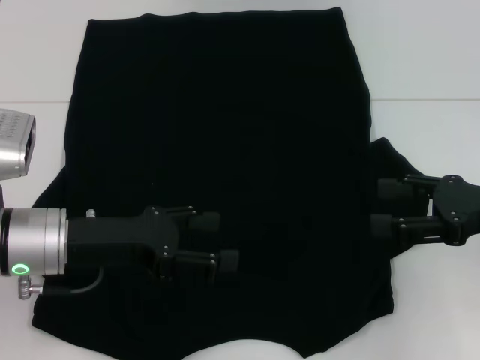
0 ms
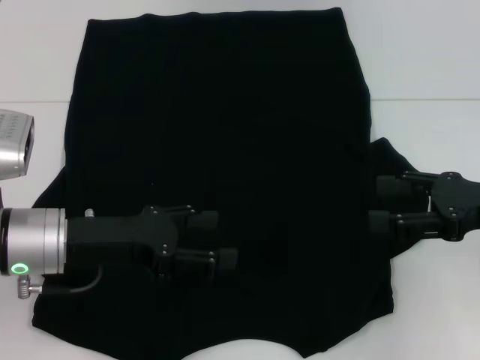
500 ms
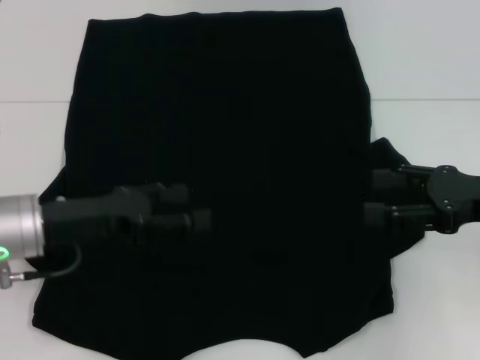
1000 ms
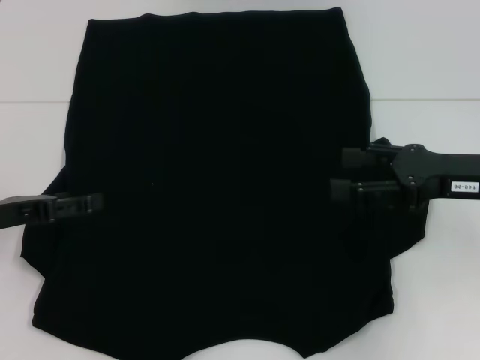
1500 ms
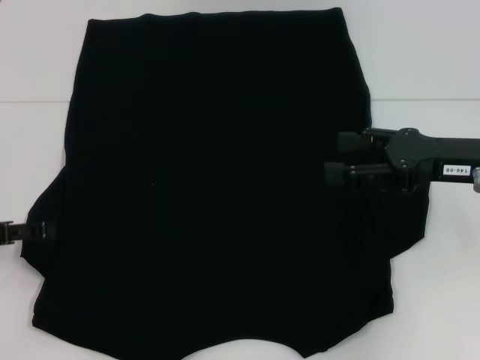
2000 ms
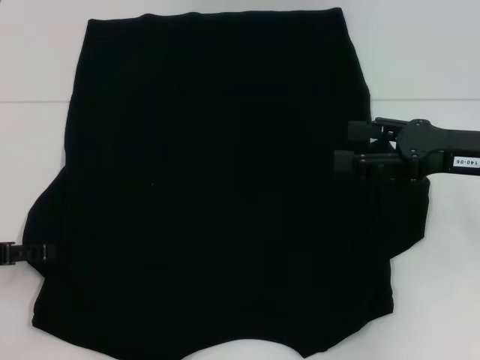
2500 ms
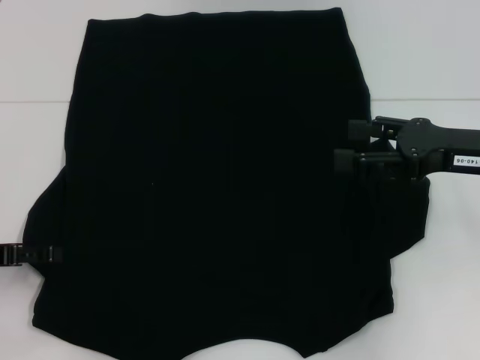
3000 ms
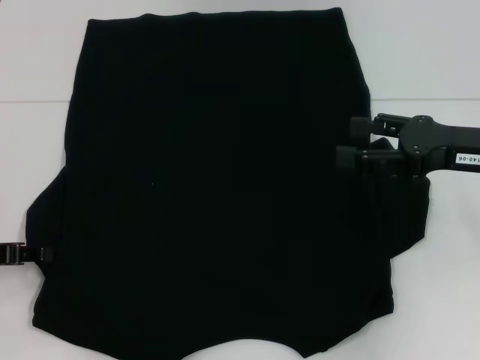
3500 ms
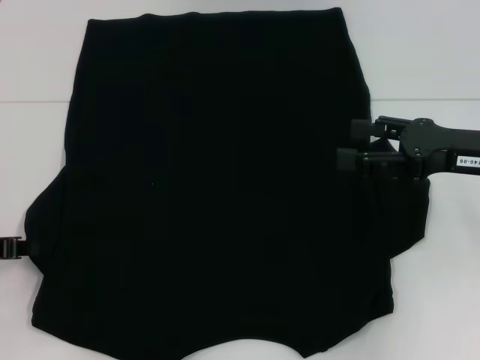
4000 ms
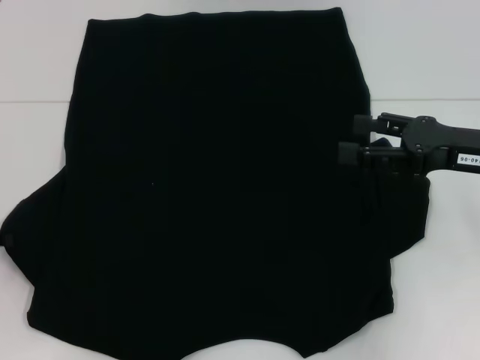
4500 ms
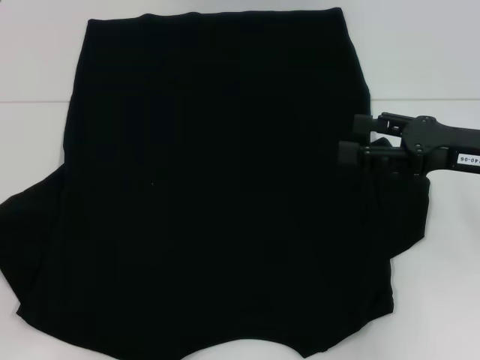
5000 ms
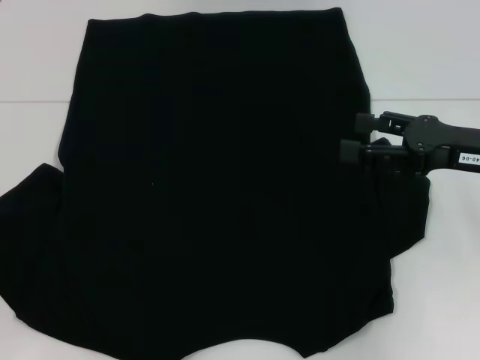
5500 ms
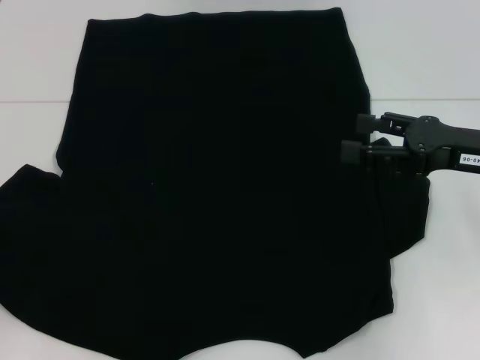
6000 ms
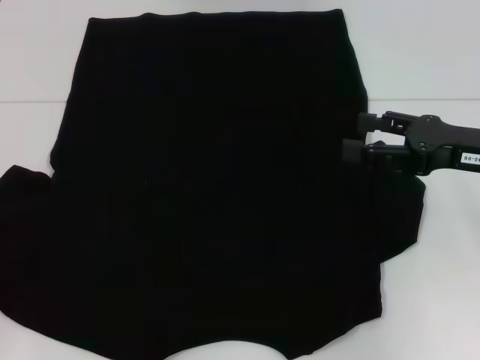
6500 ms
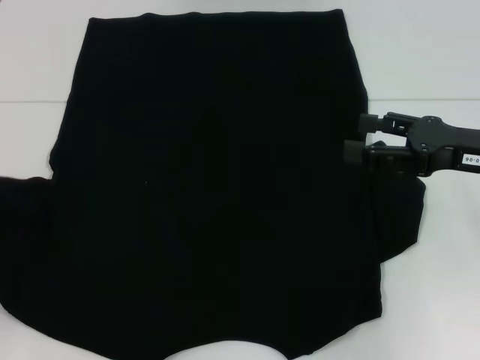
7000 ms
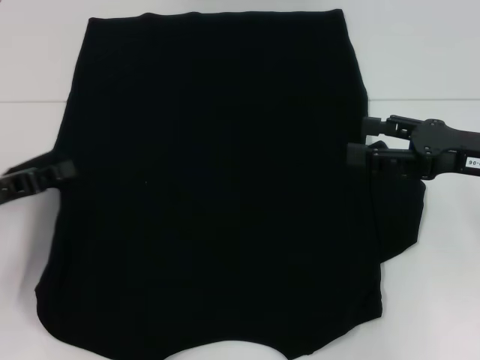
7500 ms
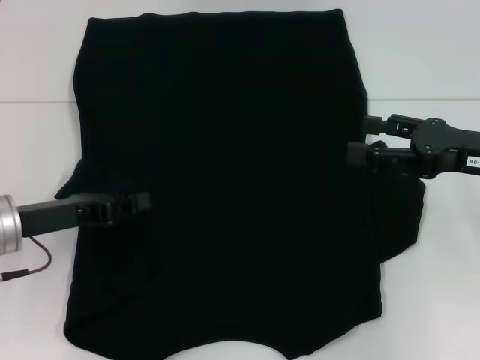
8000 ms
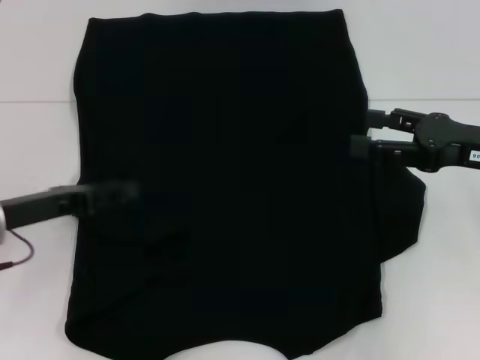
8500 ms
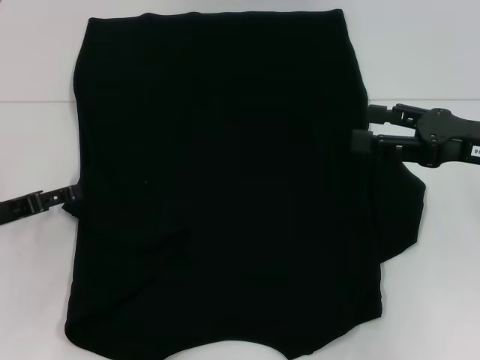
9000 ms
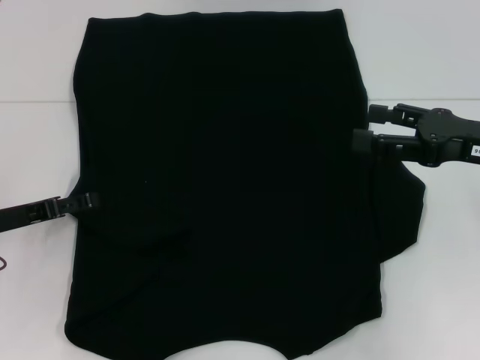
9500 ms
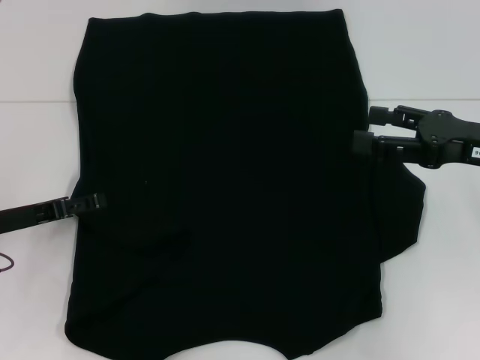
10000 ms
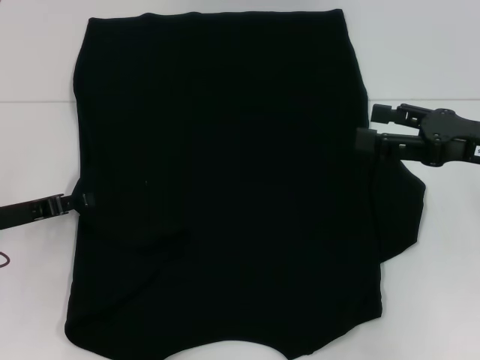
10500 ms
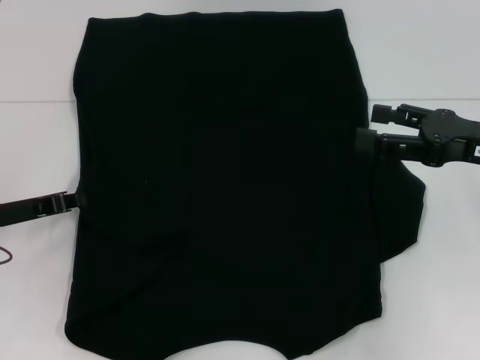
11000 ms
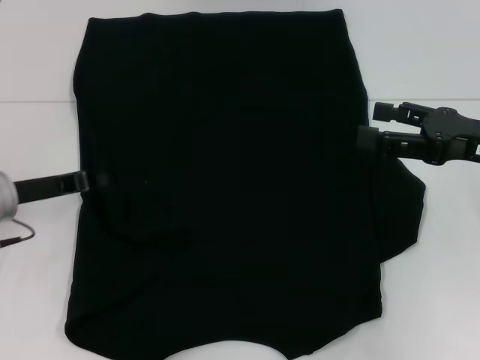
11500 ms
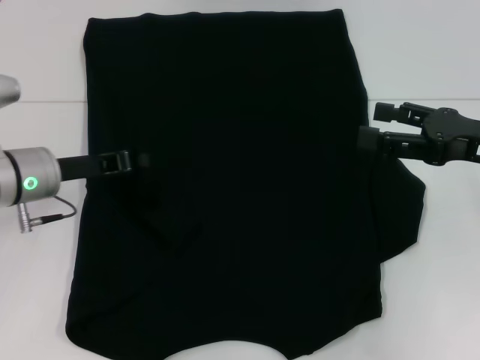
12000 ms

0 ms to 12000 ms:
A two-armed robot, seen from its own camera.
Step, 0 ms to 8500 ms: Fold the bottom left sleeve with your left hand.
0 ms to 2000 ms: The right gripper changes place by about 5 cm, while the left gripper shifts about 15 cm to the left.
2000 ms to 4000 ms: The left gripper closes.
4000 ms to 6000 ms: The left gripper shifts roughly 5 cm to the left.
6000 ms to 8000 ms: The left gripper shifts roughly 15 cm to the right.
8000 ms to 10000 ms: The left gripper opens its fingers.
10000 ms to 12000 ms: The left gripper travels to the right and forward by roughly 10 cm, and closes up.

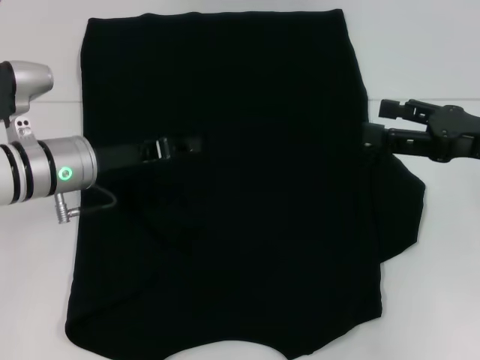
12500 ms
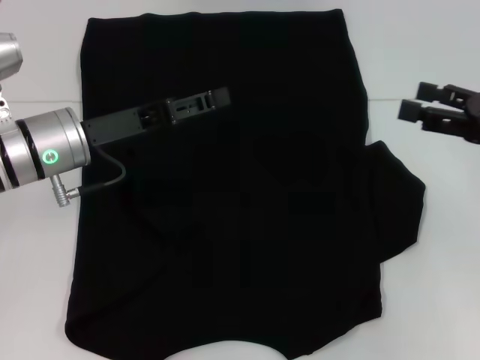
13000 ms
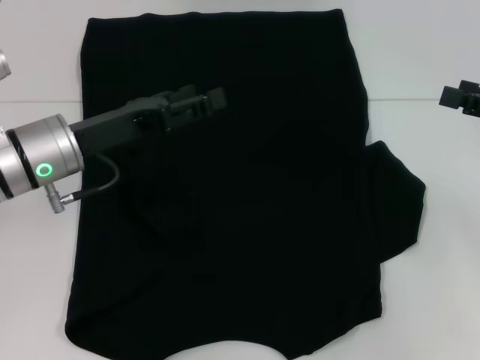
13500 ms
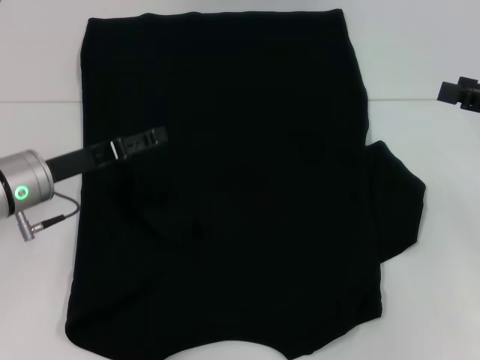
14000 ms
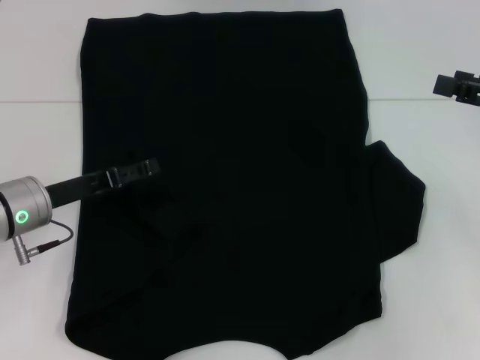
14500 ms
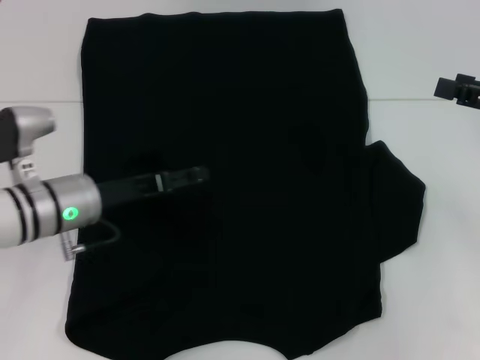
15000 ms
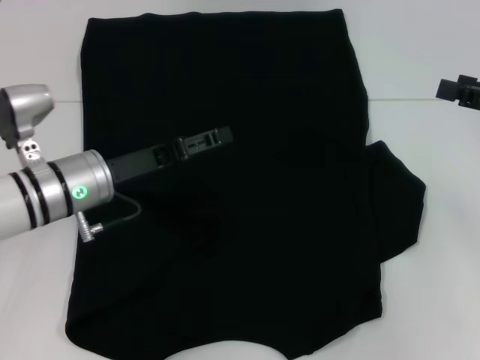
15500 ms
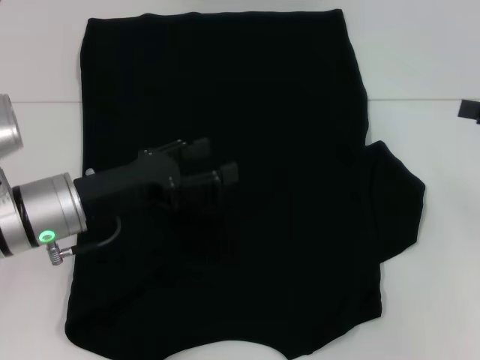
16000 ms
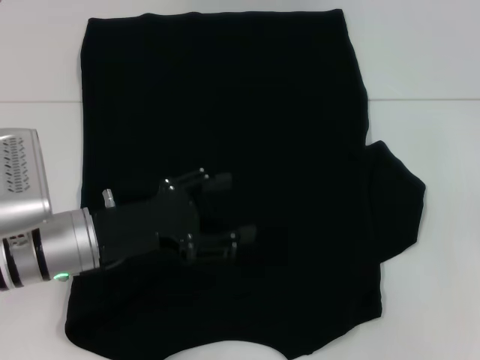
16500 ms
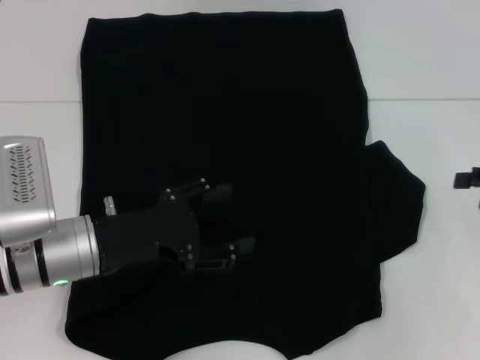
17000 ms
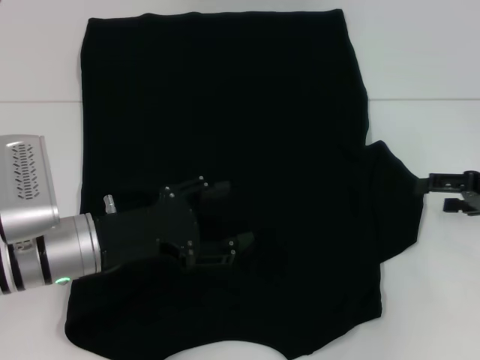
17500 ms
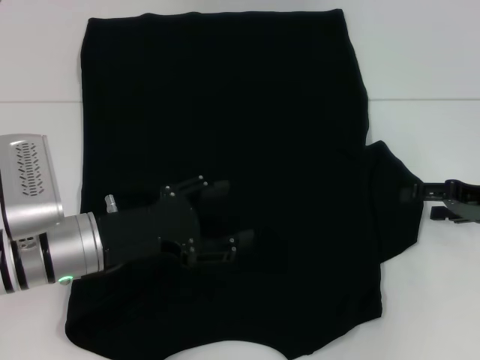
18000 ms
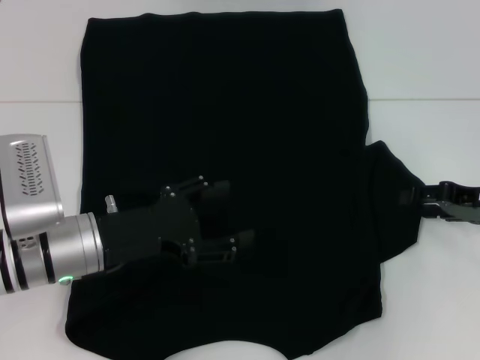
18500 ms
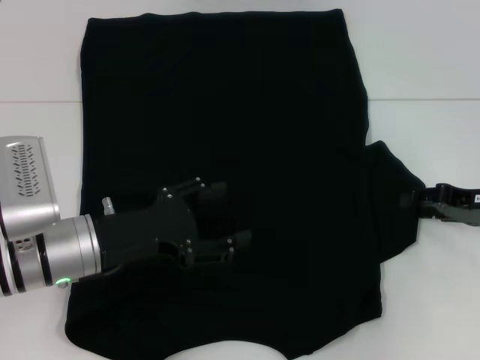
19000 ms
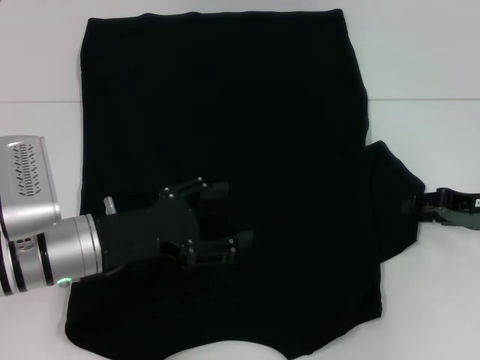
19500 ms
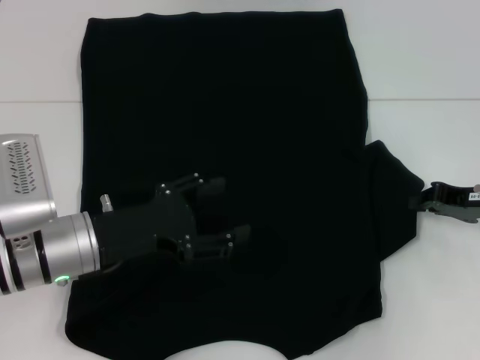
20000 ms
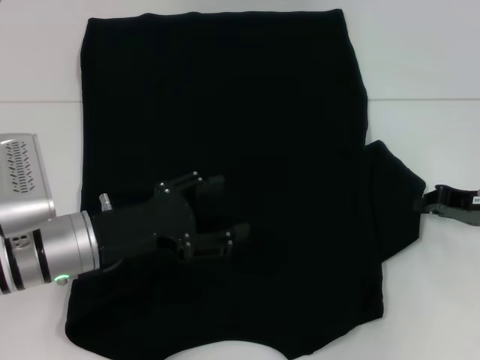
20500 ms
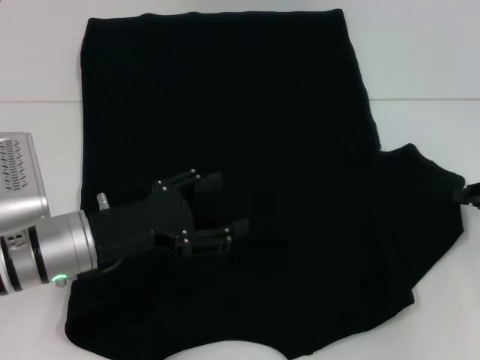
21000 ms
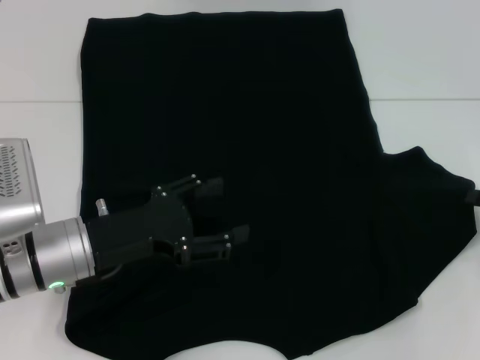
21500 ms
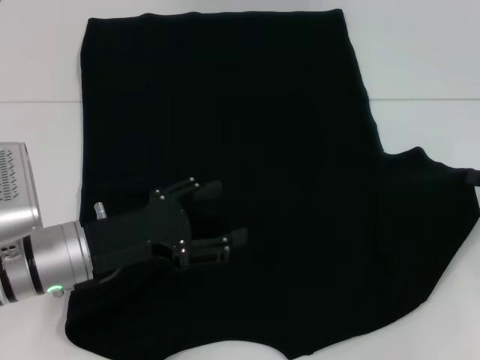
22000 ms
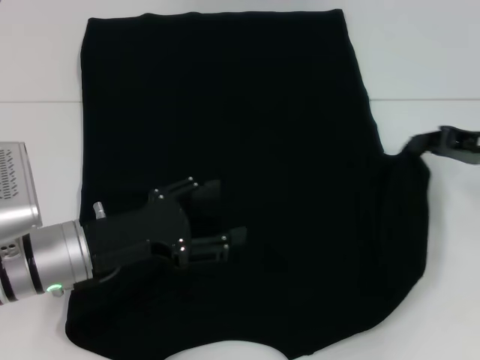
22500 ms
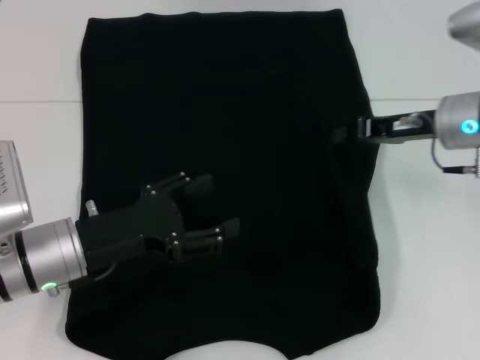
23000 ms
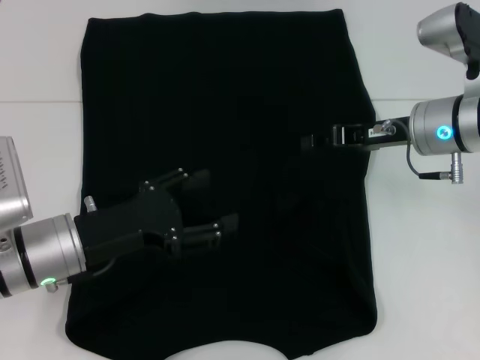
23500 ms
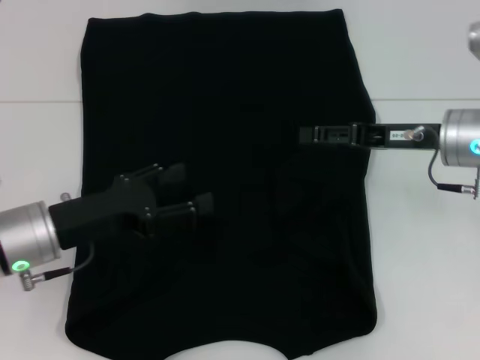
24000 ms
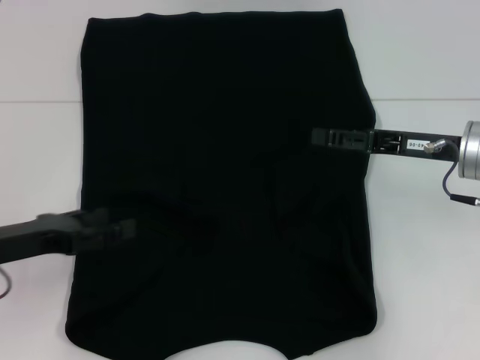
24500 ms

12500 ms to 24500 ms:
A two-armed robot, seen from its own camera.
Step, 12500 ms to 24000 ms: Fold the bottom right sleeve with your right hand.
12500 ms to 14500 ms: The right gripper heads to the right, covering approximately 5 cm. Meanwhile the left gripper changes place by some 5 cm, and opens up.
14500 ms to 16500 ms: The two grippers go approximately 5 cm to the right.
16500 ms to 18500 ms: The right gripper travels to the left and downward by about 10 cm.
18500 ms to 20500 ms: The right gripper closes its fingers.
20500 ms to 22500 ms: The right gripper shifts roughly 5 cm upward.
22500 ms to 24500 ms: Both grippers travel together to the left, roughly 10 cm. The right gripper opens up.

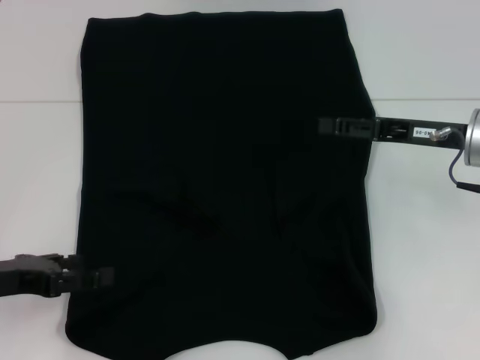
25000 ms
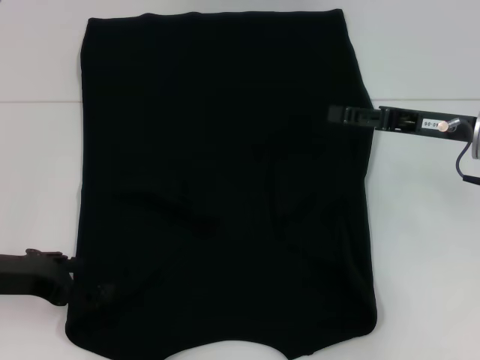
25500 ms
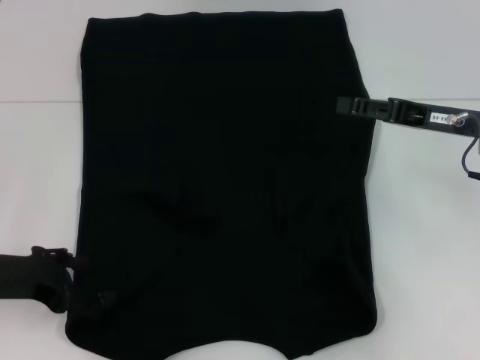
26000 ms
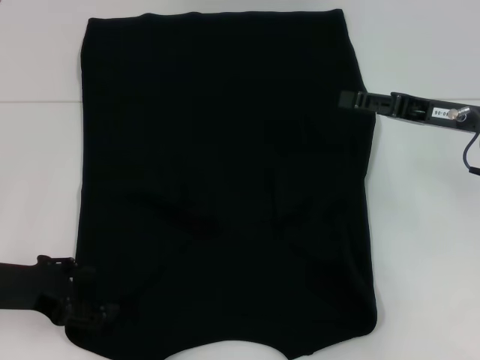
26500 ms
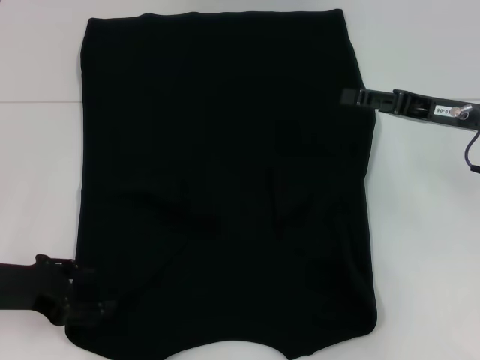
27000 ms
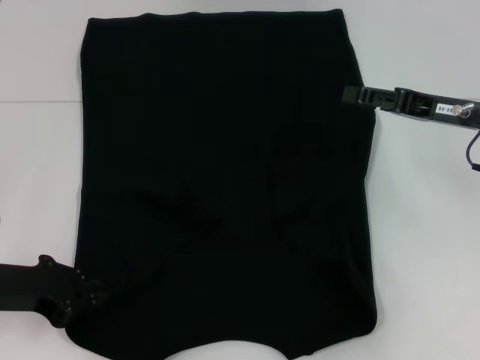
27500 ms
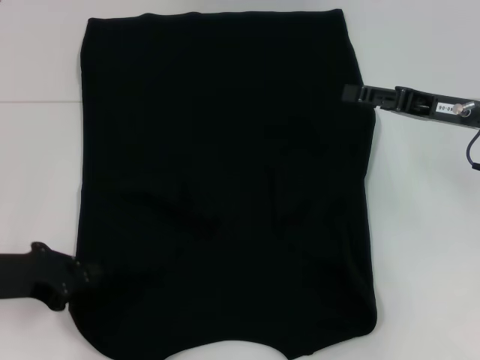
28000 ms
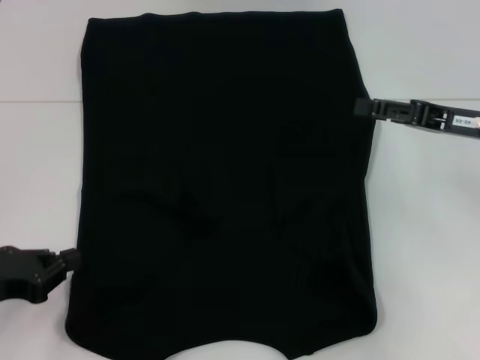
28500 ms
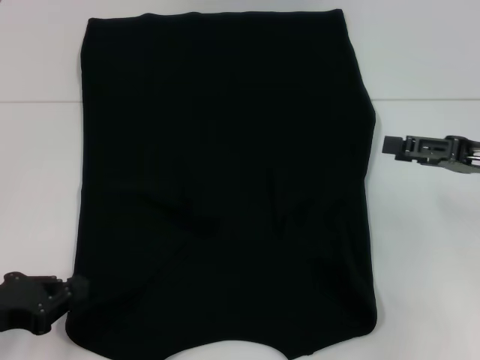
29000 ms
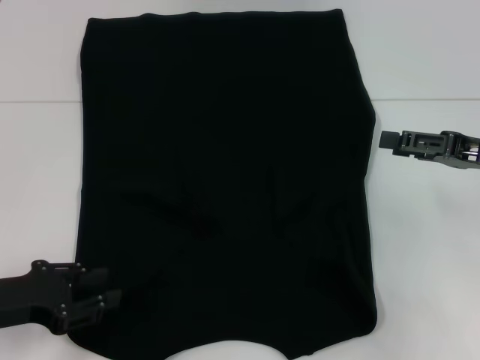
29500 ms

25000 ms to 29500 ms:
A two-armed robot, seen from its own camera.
27000 ms to 29500 ms: The right gripper moves some 5 cm. The left gripper closes up.
